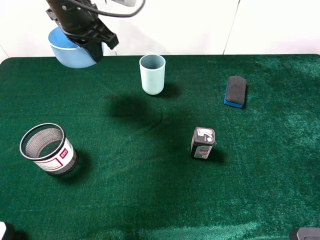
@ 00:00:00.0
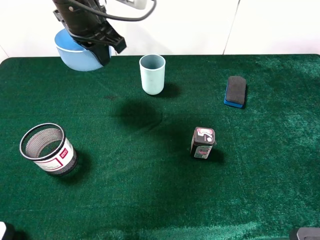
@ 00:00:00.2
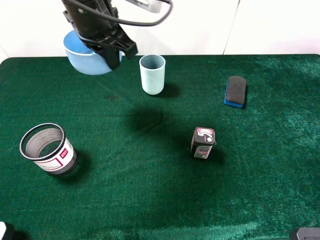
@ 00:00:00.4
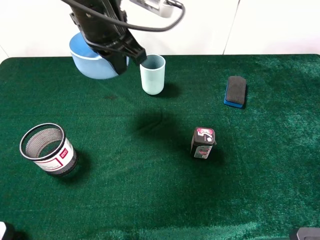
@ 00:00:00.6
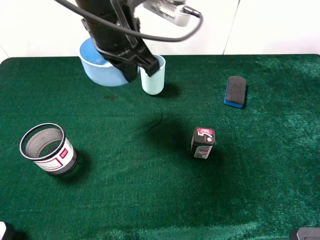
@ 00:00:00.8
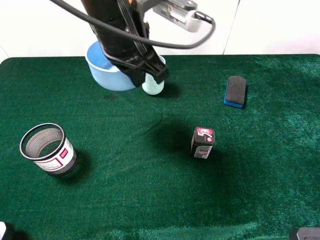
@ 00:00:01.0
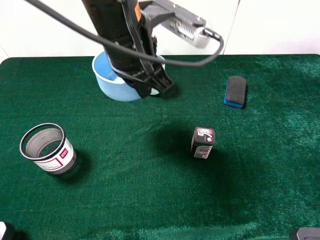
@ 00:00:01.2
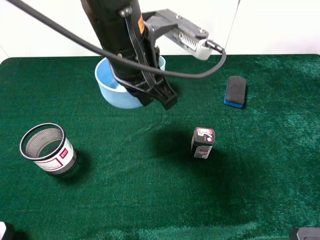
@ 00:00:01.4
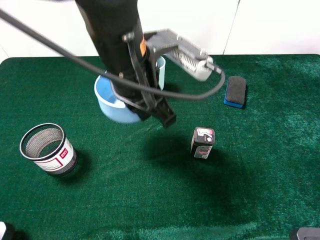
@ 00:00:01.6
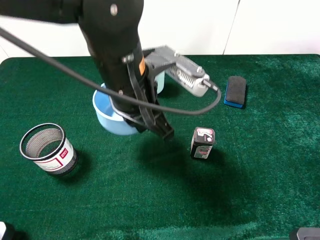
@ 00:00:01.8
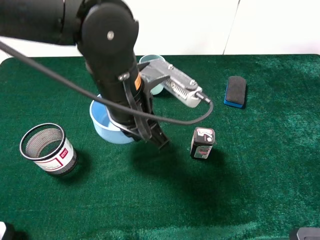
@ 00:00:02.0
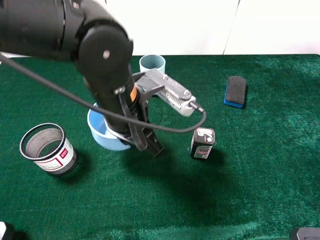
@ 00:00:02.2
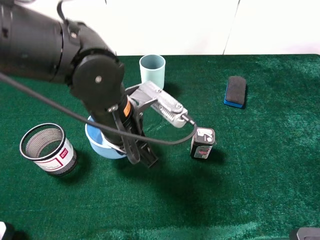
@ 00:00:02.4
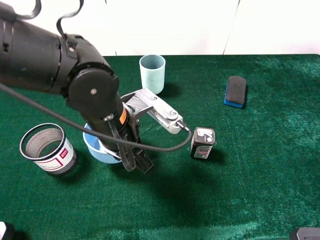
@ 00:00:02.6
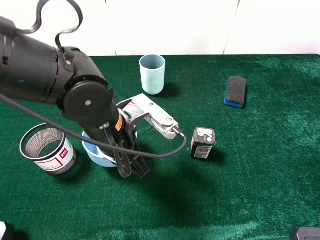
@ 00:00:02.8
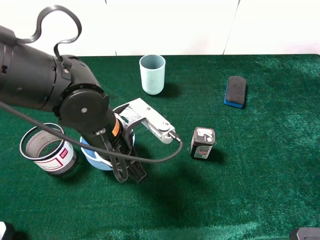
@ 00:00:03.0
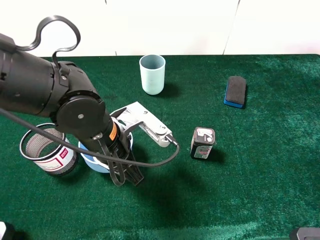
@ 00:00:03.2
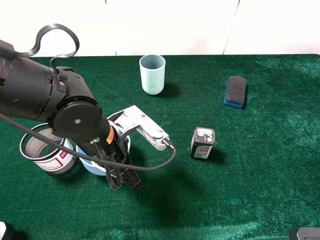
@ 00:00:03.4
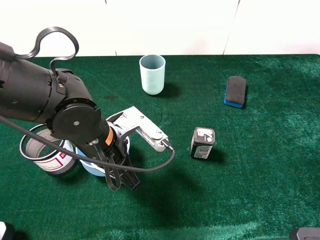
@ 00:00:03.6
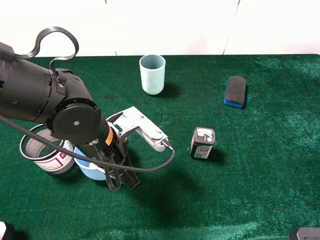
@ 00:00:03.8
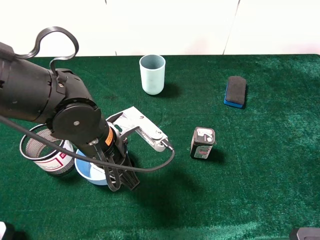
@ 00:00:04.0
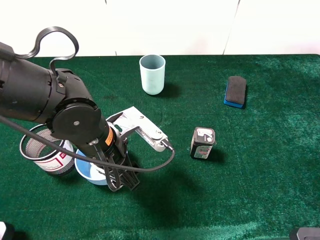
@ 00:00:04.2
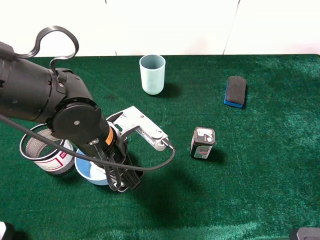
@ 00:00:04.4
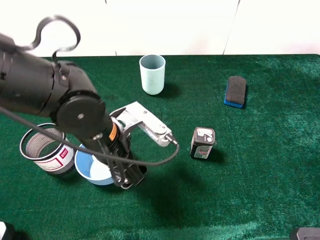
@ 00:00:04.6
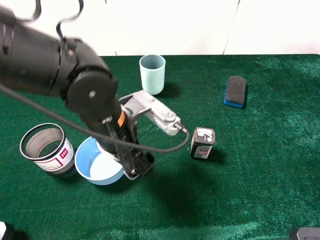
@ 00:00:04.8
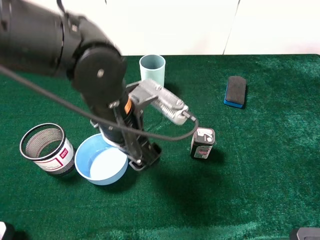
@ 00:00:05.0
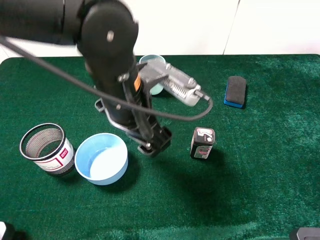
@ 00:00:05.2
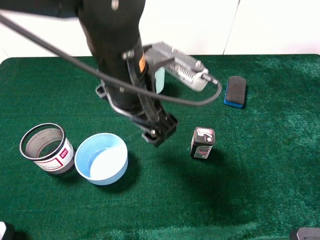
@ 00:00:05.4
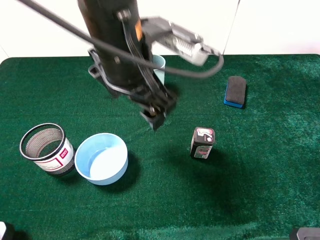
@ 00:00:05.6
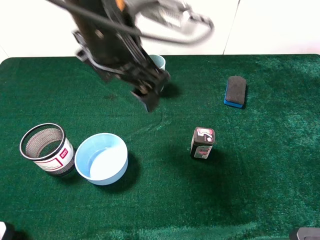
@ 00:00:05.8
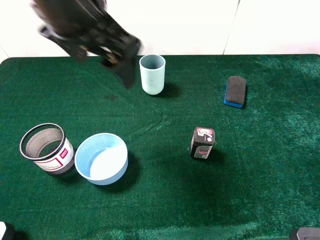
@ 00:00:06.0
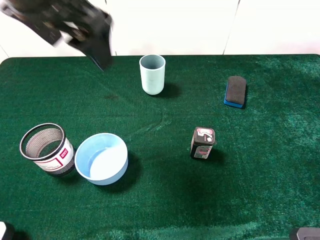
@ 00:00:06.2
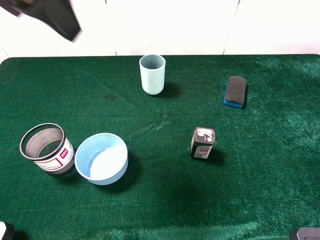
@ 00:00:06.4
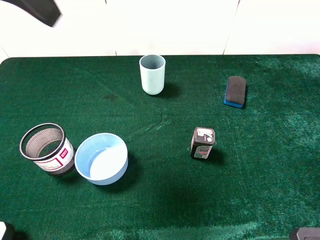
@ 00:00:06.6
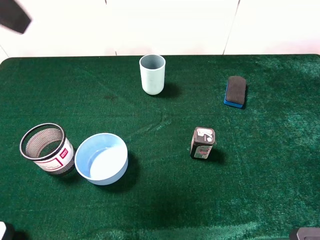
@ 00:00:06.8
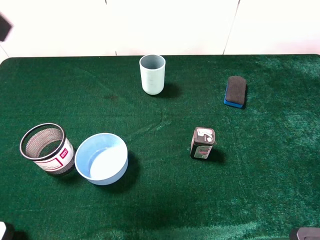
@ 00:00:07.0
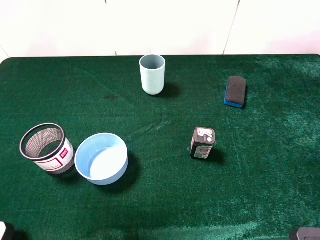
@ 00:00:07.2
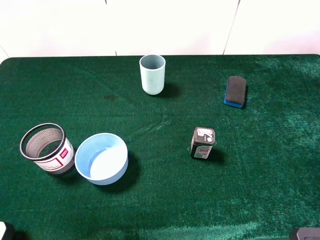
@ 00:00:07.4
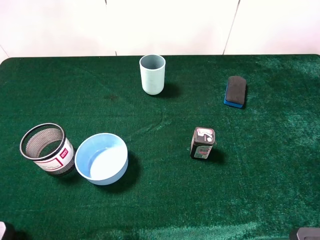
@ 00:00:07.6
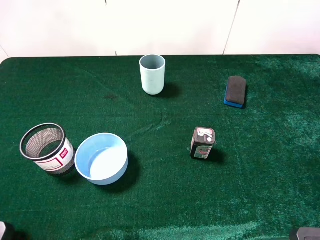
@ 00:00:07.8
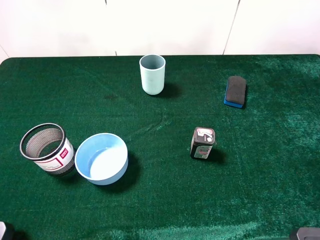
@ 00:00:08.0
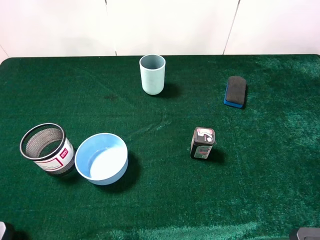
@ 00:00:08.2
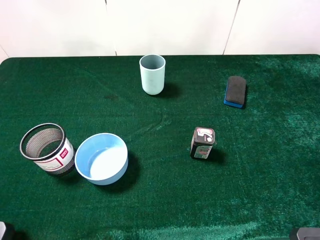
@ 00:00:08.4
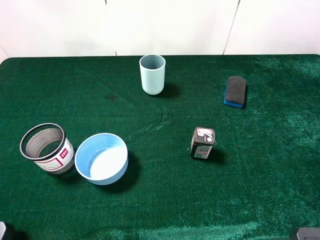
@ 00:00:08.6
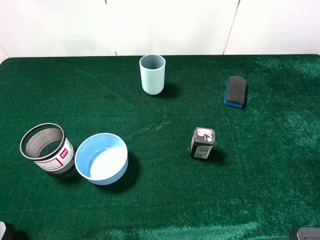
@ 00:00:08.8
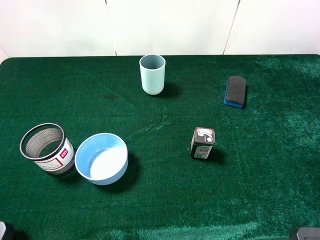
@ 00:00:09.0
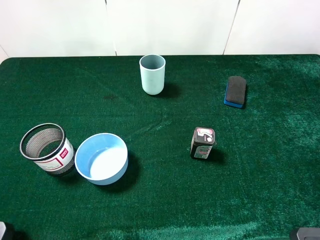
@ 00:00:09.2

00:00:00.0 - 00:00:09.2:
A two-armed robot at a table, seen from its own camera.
Task of the whole recording: the gripper move the object.
Step, 00:00:00.0 - 00:00:04.6: Place the blue cup on the table with the left gripper.
00:00:00.0 - 00:00:01.6: The left gripper goes roughly 15 cm backward and to the right.
00:00:01.6 - 00:00:03.0: The left gripper travels downward by about 10 cm.
00:00:03.0 - 00:00:04.6: The left gripper opens.
00:00:04.6 - 00:00:06.2: The left gripper moves upward, about 25 cm.
00:00:06.2 - 00:00:07.6: The left gripper goes approximately 25 cm to the left and backward.
